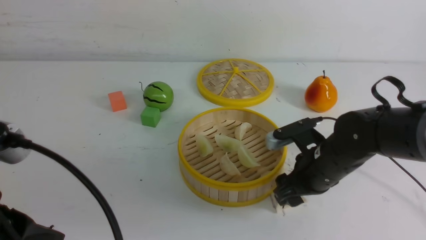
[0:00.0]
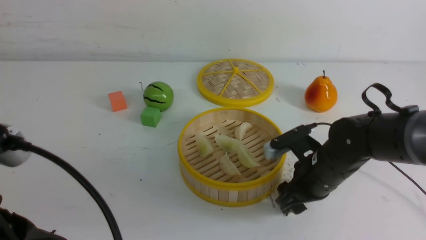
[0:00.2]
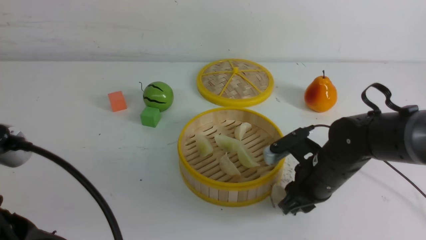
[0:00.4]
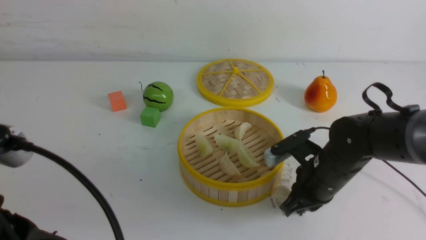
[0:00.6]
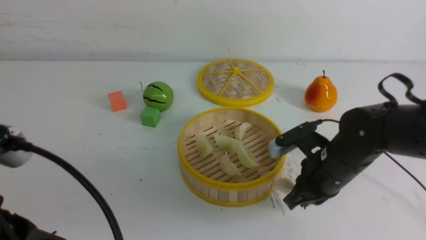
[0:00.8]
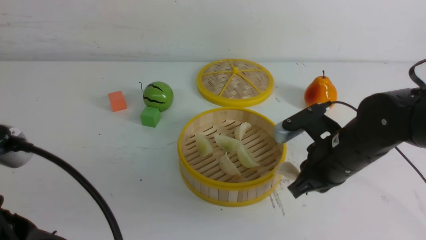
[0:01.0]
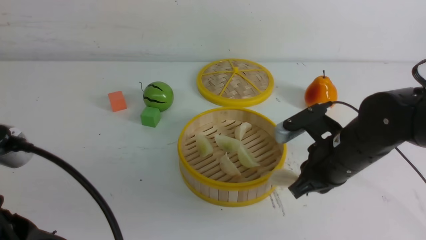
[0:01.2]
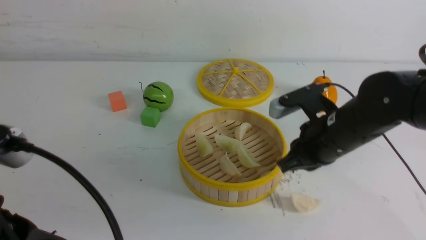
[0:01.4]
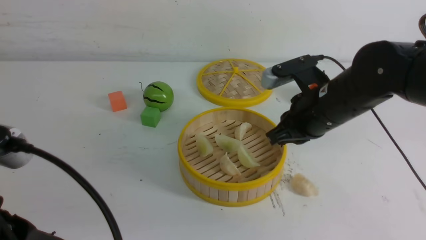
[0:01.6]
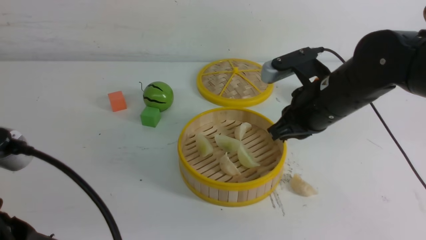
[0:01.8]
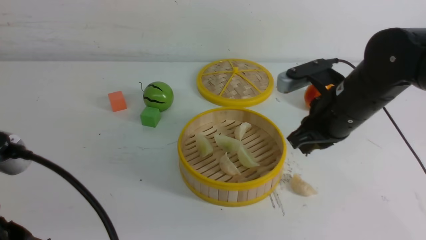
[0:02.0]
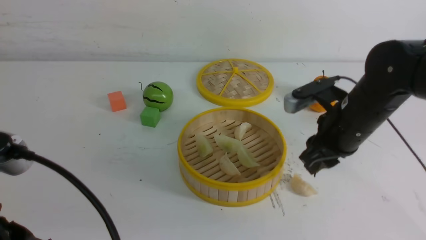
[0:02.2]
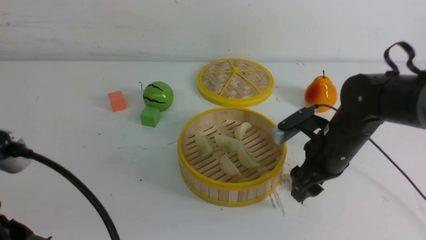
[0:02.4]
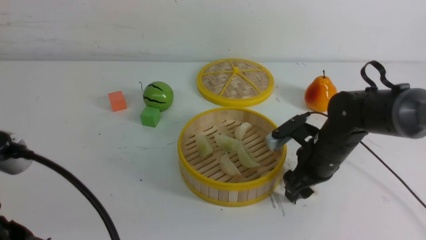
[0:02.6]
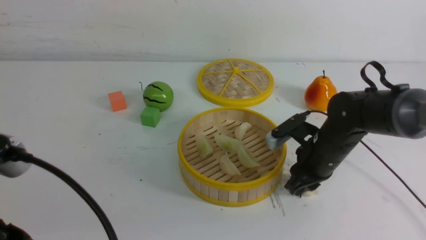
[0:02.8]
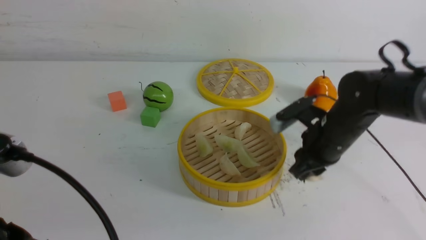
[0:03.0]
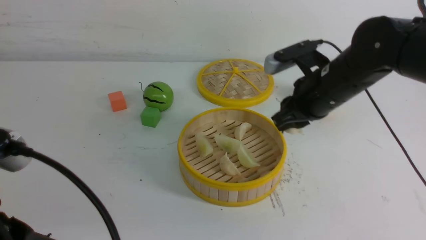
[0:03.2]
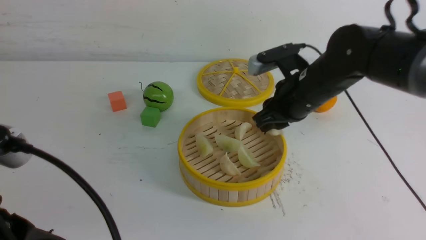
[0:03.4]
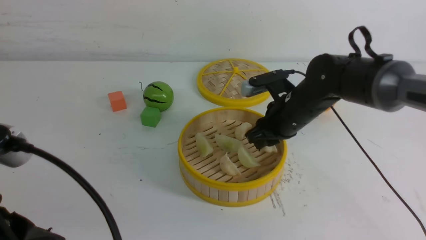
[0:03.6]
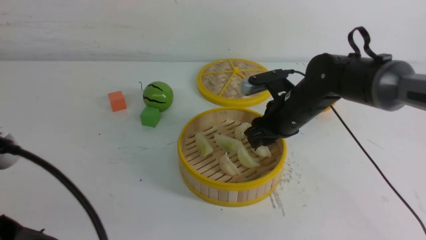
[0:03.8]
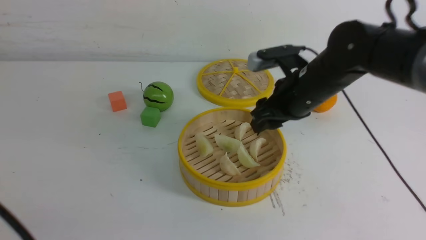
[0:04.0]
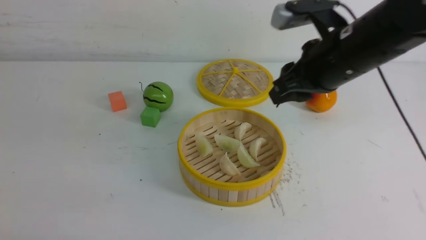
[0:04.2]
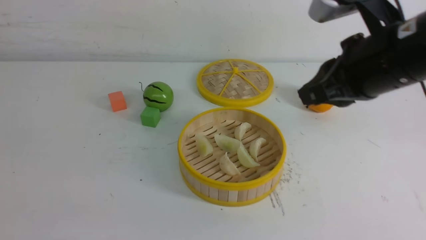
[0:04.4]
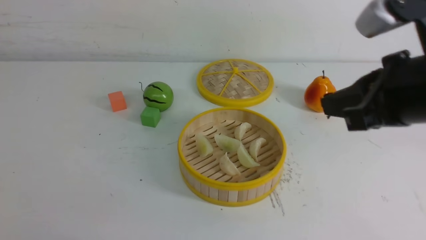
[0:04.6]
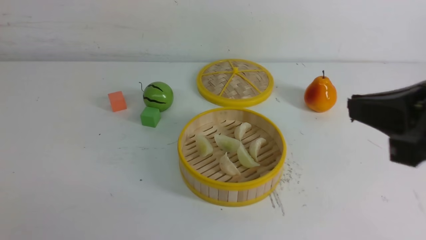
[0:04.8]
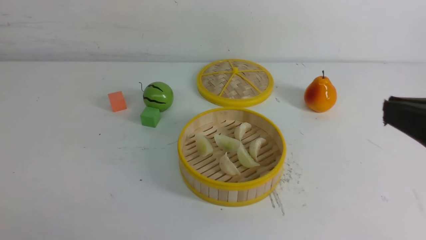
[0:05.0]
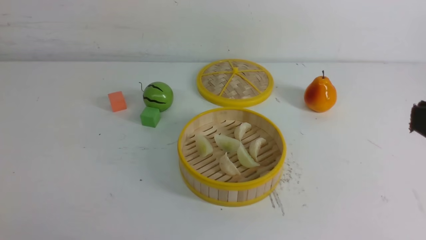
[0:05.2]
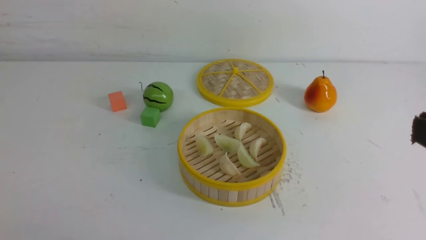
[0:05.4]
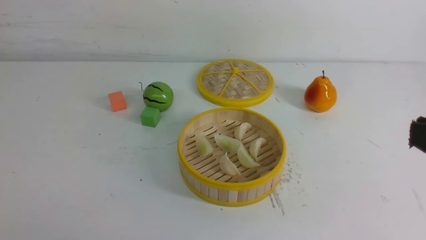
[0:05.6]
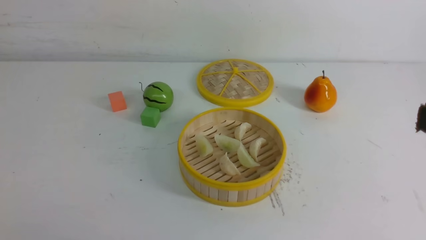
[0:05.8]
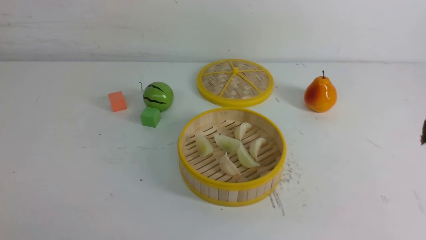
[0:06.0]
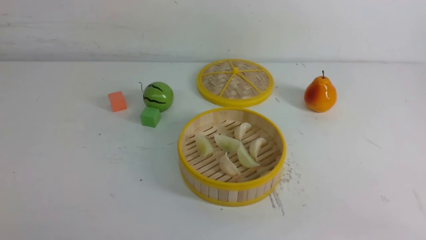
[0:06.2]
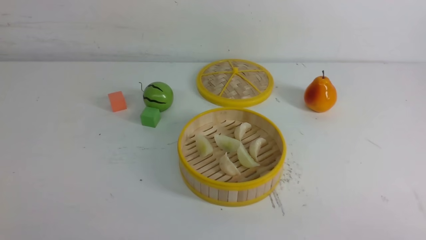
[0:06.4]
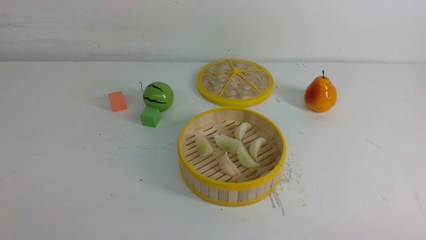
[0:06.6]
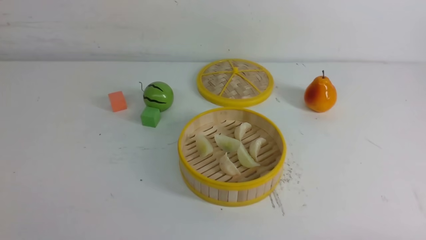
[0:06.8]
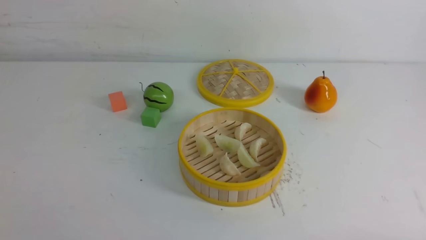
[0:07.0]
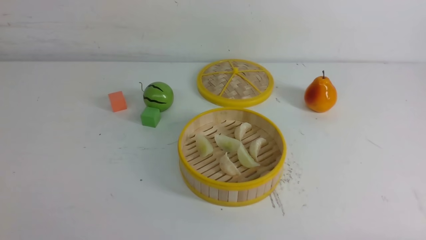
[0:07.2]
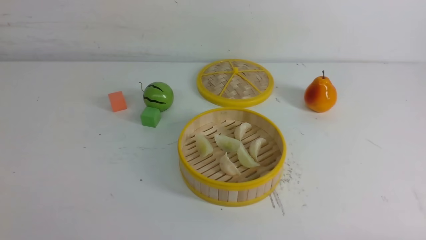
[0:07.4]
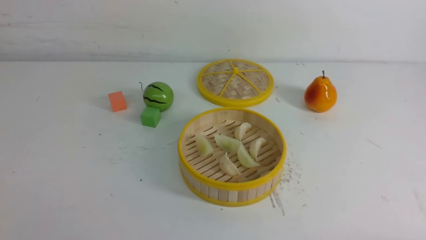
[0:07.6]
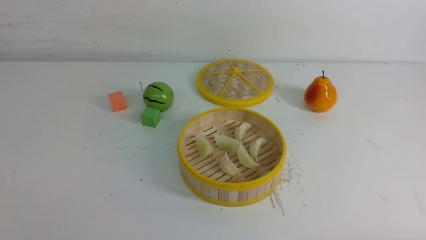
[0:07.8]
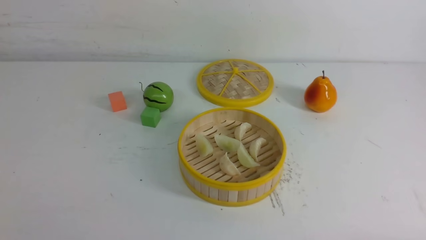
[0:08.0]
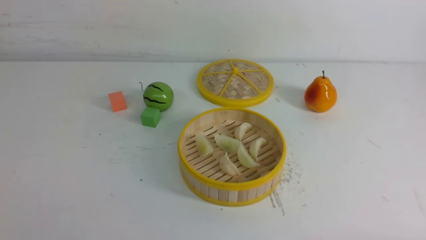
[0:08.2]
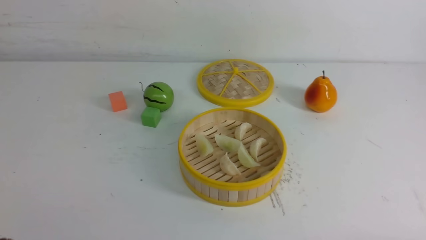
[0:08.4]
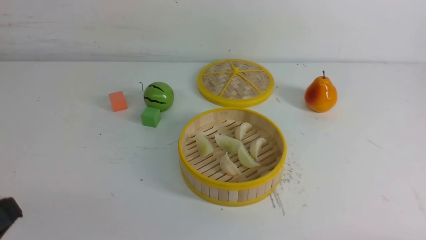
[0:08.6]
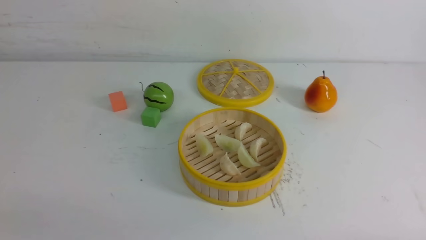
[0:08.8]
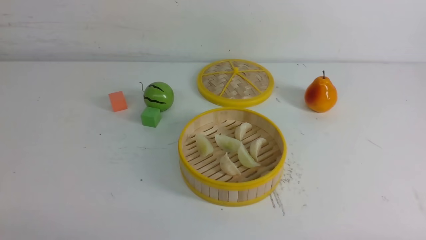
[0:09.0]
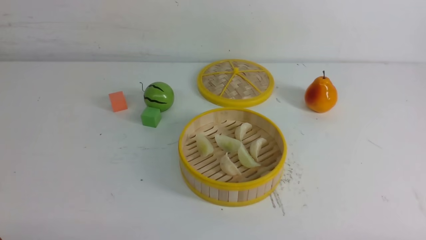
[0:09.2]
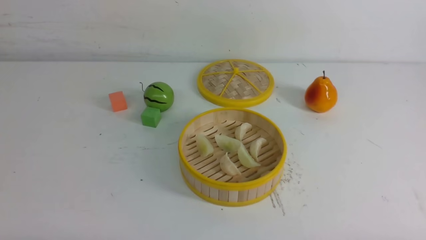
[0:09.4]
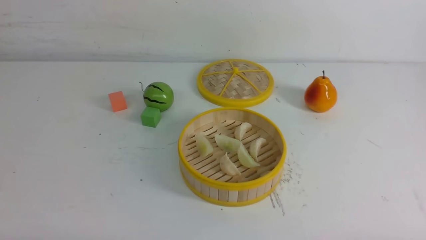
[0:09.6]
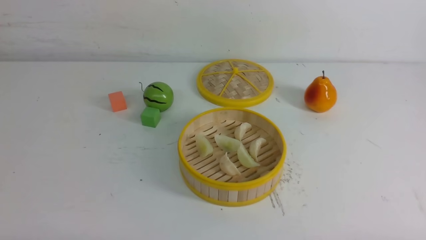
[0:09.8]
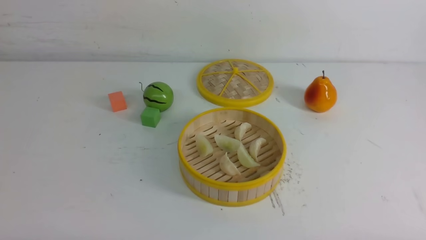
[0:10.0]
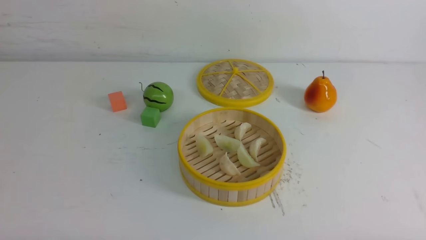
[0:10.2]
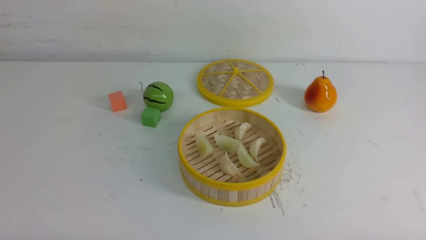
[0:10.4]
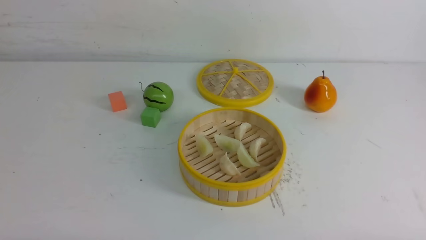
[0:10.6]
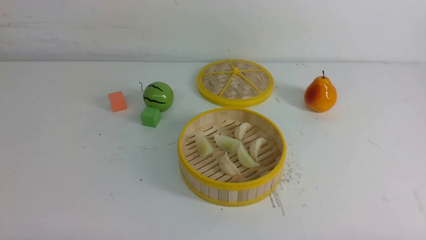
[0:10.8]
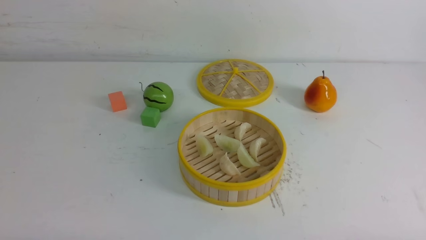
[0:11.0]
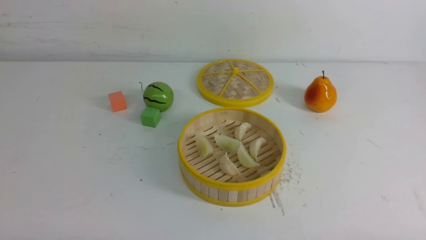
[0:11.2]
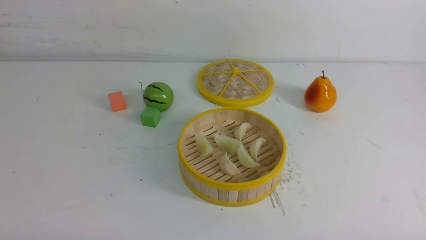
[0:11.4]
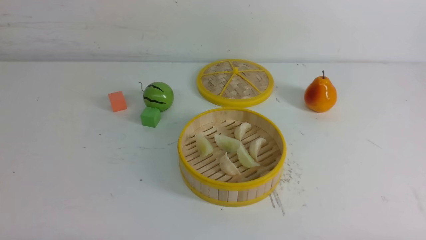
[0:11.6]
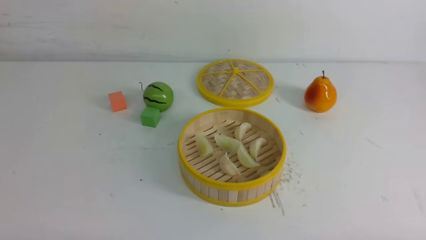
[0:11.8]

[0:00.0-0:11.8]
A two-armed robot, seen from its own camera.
Task of the whole recording: put the dumplings into the steamer on the white table.
Step, 0:00.0 to 0:02.8: use the right arm to grab a dumpling.
Step, 0:03.0 to 0:03.8: use the right arm to put the dumpling into the steamer.
0:00.0 to 0:01.4: The right gripper shifts approximately 10 cm upward, and closes.
0:01.4 to 0:03.0: The right gripper moves some 10 cm downward and comes back, and opens and closes again.
0:03.0 to 0:04.4: The left gripper shifts approximately 10 cm backward and to the left, while the right gripper is displaced upward and backward by about 20 cm.
0:04.4 to 0:06.0: The right gripper moves backward and to the right, about 20 cm.
0:10.4 to 0:11.8: Neither gripper changes place.
